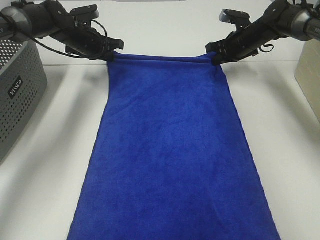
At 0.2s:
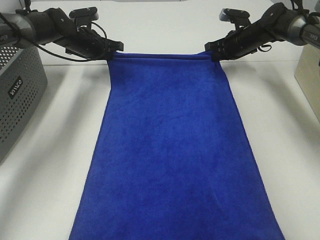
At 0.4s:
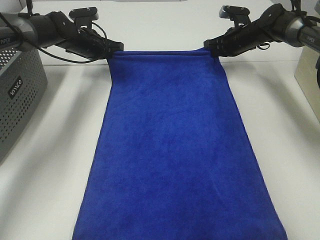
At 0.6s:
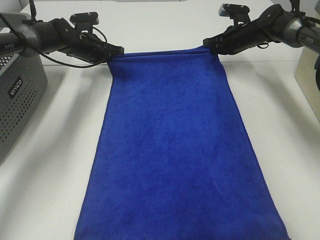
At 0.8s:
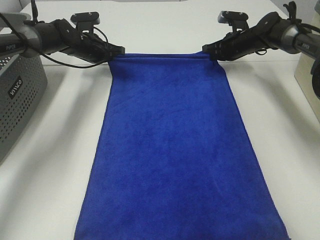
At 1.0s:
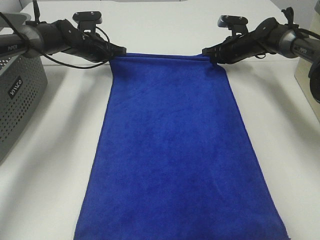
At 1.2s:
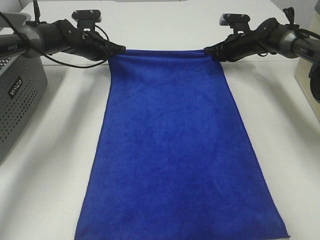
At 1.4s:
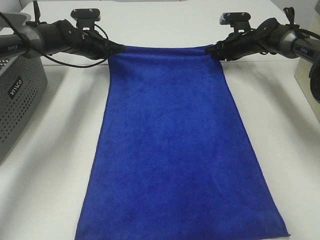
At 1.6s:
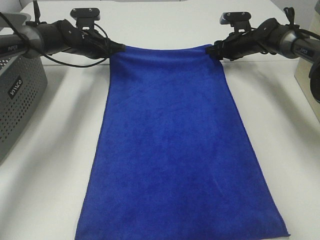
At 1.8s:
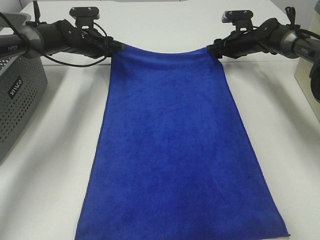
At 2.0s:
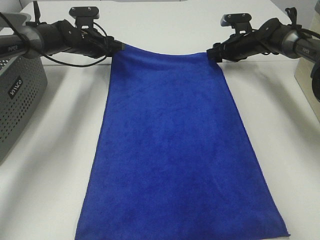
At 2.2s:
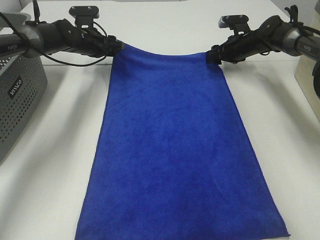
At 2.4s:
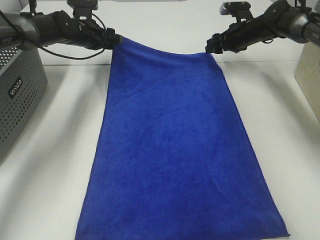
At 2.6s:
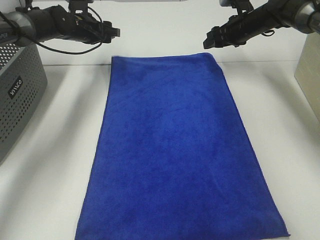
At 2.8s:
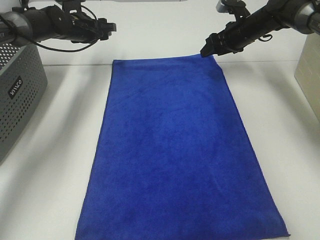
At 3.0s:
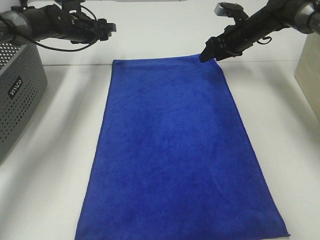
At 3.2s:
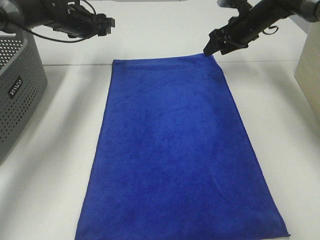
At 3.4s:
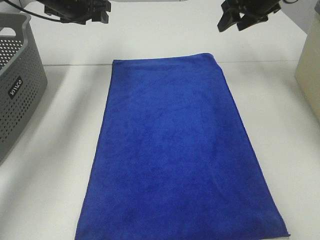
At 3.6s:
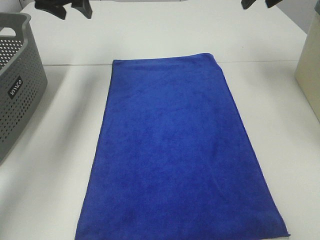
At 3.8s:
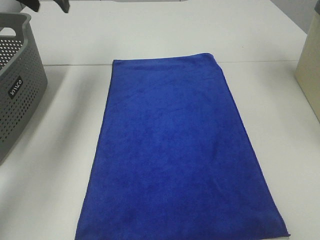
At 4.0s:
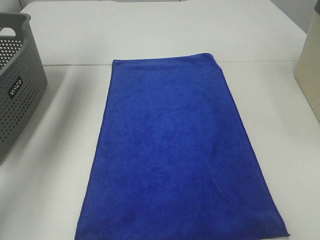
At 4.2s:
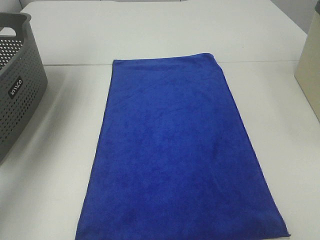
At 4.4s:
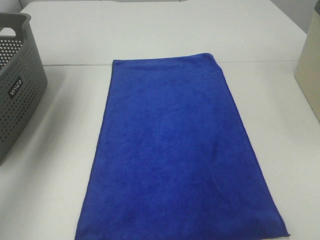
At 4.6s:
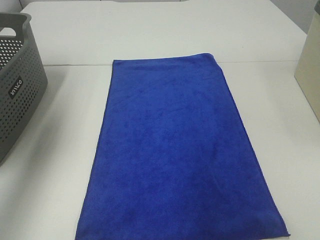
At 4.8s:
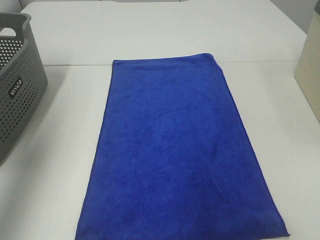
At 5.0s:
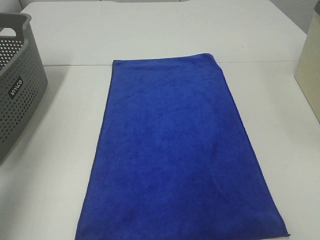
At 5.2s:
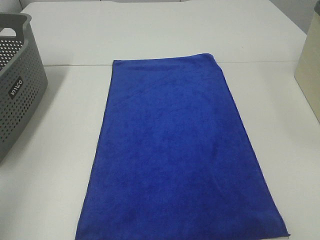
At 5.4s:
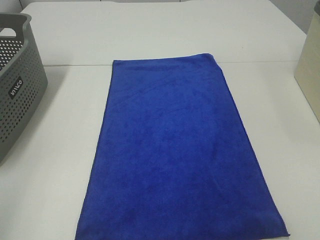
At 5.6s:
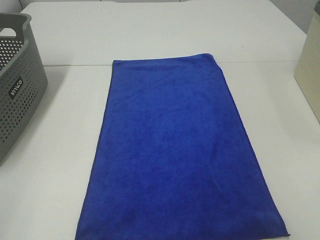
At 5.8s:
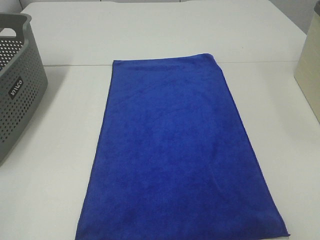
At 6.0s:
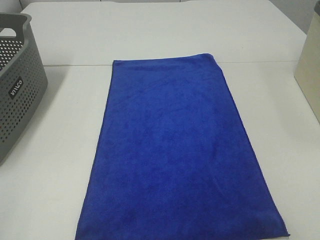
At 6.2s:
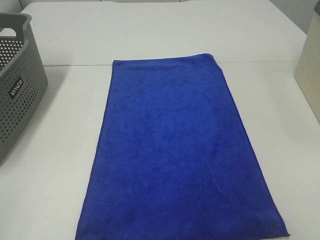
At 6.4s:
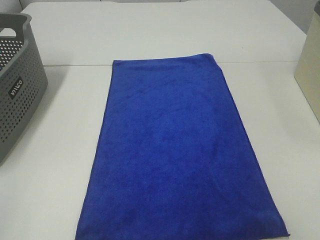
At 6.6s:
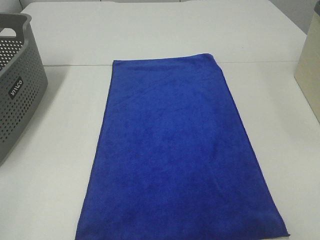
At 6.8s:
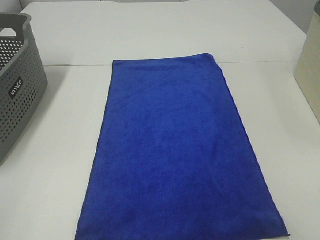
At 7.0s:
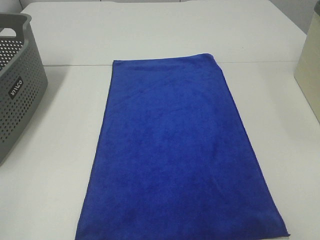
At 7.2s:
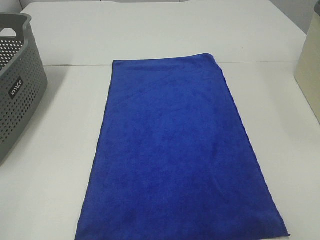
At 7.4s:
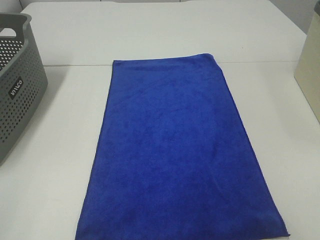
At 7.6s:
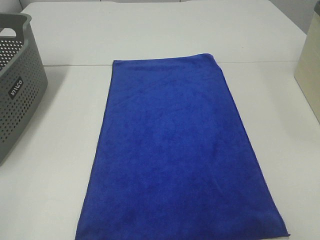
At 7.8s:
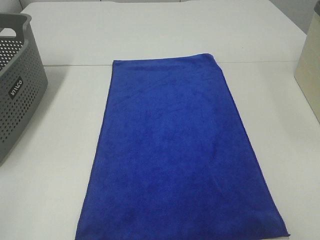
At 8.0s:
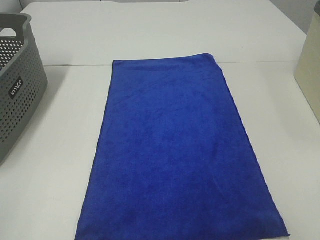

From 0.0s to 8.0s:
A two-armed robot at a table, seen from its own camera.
Task of the whole recording: Remove the towel and place it.
From 0.0s to 1.6s: The right gripper opens its fingers.
From 1.6s to 3.2s: Both grippers move upward, about 10 cm. The left gripper opens up.
From 3.2s to 4.8s: The grippers both shift backward and upward by approximately 40 cm.
From 4.8s to 6.4s: The left gripper shifts approximately 25 cm backward and downward.
From 6.4s to 8.0s: Neither gripper changes place.

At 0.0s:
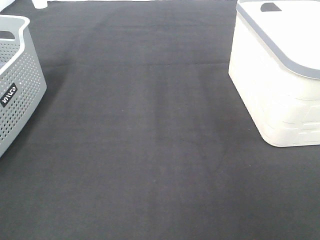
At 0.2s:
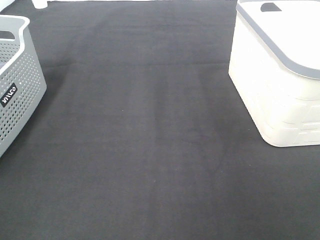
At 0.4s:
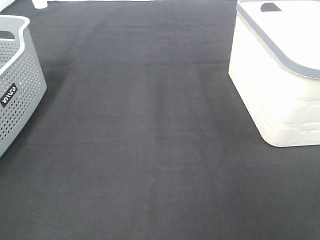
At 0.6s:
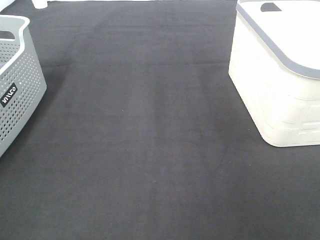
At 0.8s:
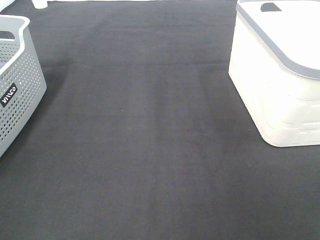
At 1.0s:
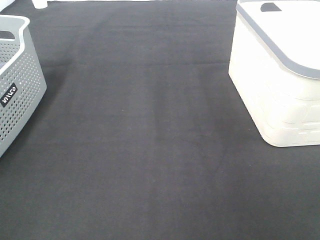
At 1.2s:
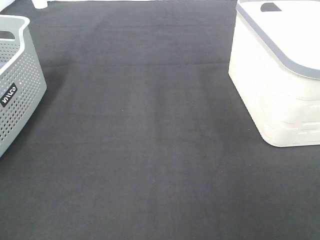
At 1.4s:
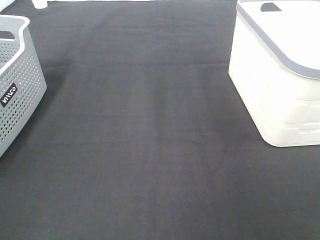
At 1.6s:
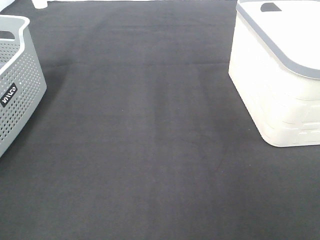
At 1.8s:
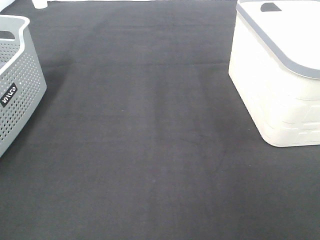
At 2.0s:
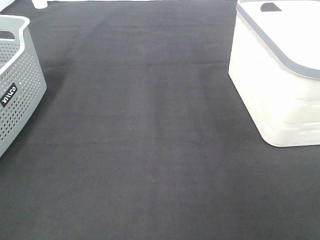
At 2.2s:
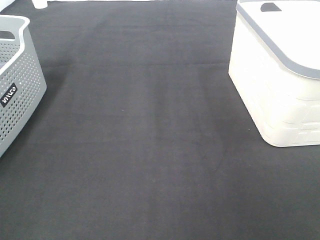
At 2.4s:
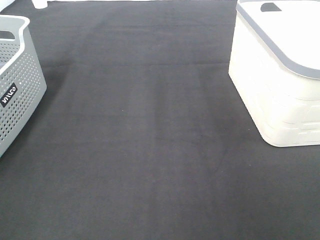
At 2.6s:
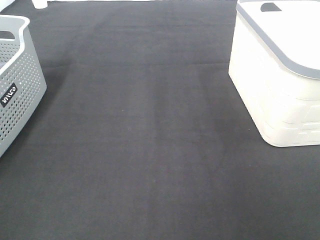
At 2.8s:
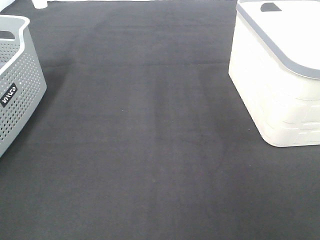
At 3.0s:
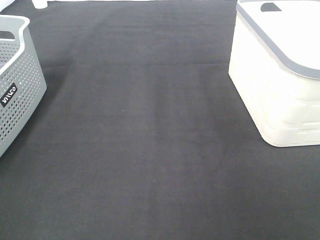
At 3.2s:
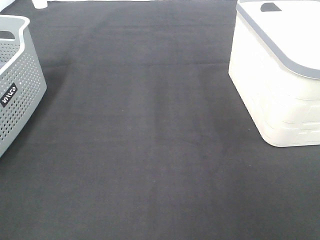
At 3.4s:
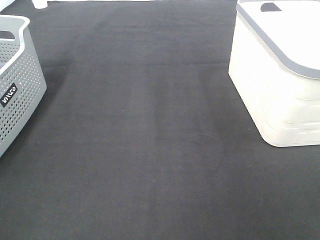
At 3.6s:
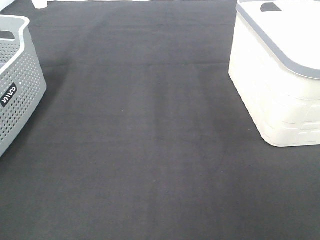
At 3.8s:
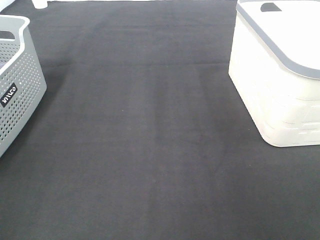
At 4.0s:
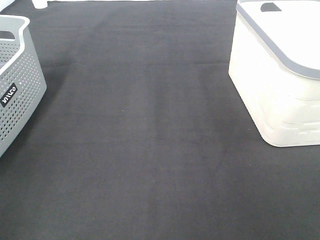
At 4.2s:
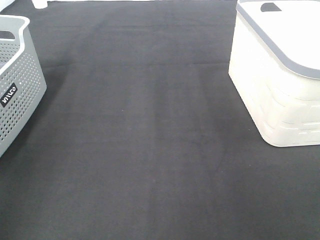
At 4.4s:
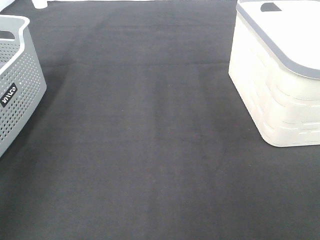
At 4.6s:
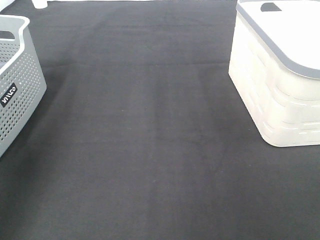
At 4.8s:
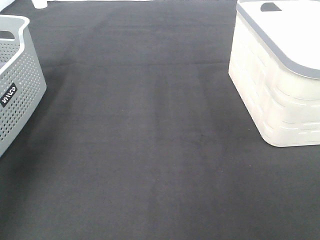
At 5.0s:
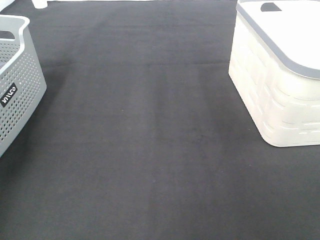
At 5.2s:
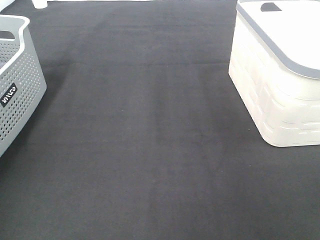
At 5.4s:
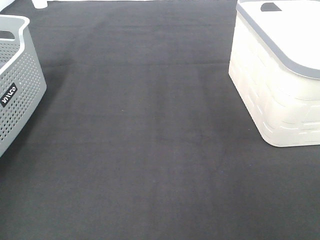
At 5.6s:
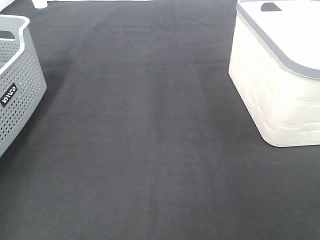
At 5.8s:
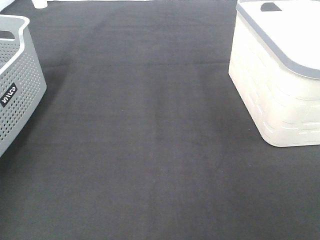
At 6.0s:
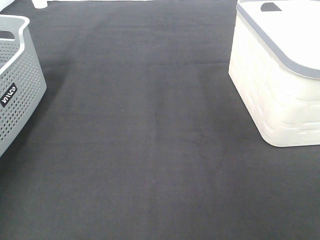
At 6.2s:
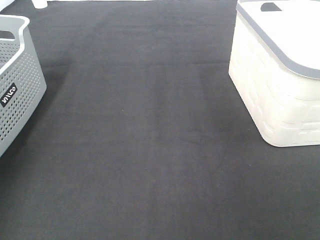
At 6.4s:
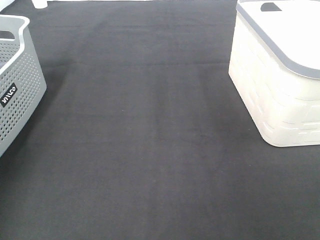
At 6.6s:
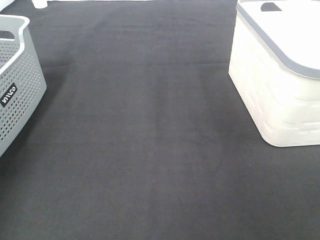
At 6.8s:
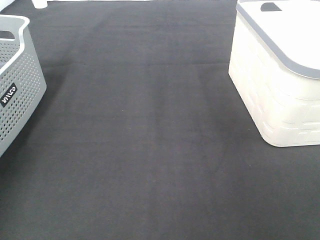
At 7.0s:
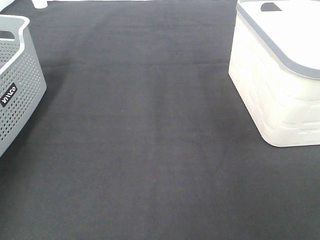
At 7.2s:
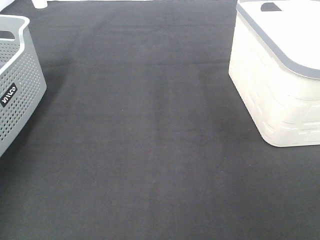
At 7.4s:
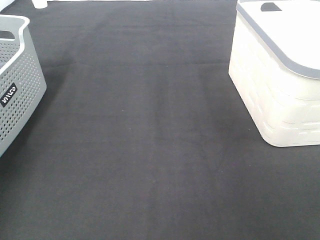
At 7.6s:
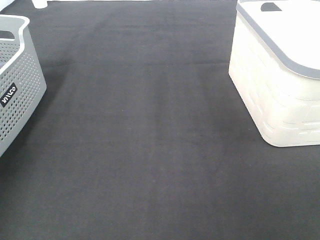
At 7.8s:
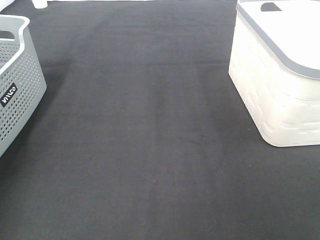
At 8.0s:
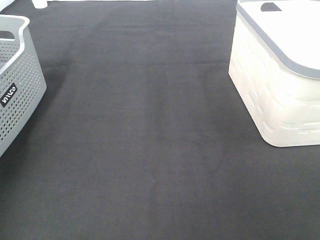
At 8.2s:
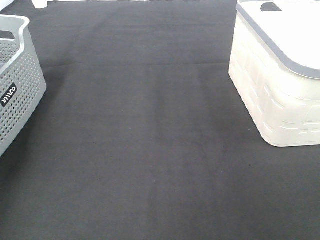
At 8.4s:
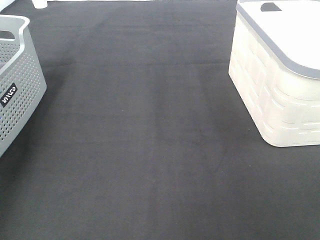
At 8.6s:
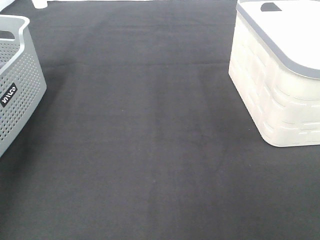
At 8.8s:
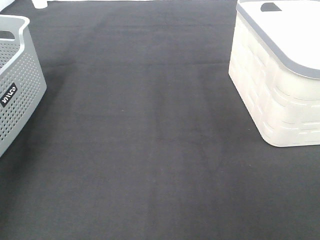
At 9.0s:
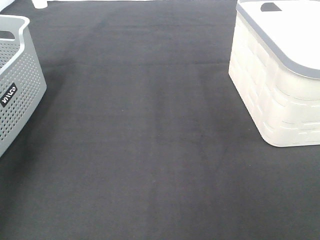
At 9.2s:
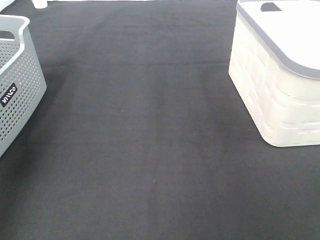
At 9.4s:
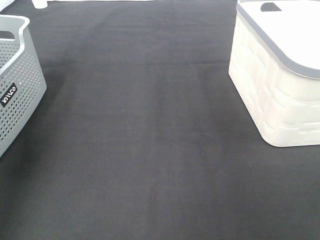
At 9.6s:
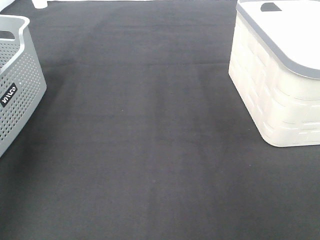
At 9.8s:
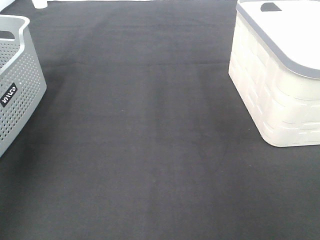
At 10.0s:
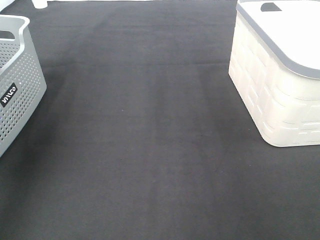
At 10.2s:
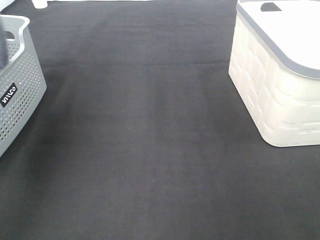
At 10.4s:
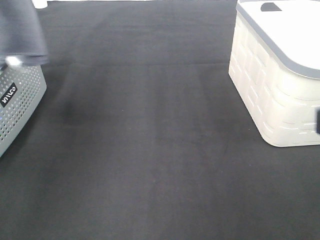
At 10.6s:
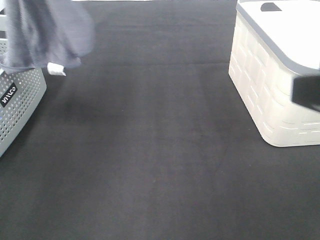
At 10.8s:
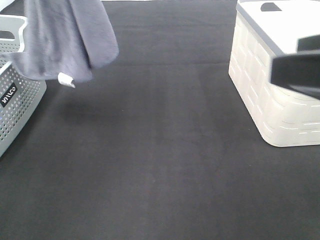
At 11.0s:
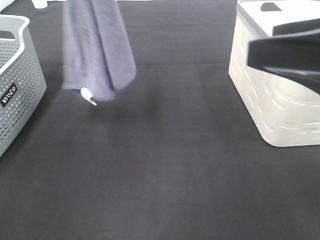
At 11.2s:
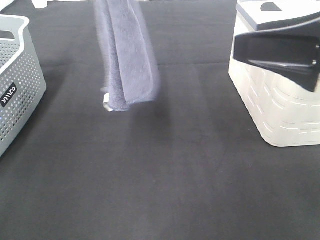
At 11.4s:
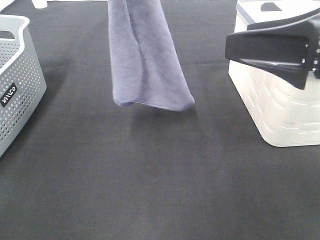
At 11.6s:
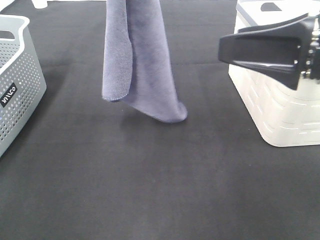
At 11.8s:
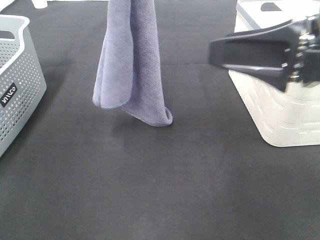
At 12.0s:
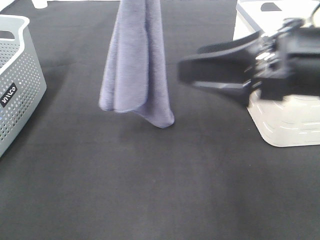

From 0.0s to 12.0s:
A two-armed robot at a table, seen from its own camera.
Task of the whole recording: Remove the towel and place it.
From 0.0s to 3.0s: Both grippers stay about where they are.
From 3.0s to 4.4s: The left gripper heads forward and upward, covering some 20 cm.
From 9.0s to 10.4s: The left gripper moves to the right and upward, some 15 cm.
From 10.4s to 12.0s: The right gripper shifts some 15 cm forward, to the left and downward; the left gripper heads to the right and downward, covering about 20 cm.

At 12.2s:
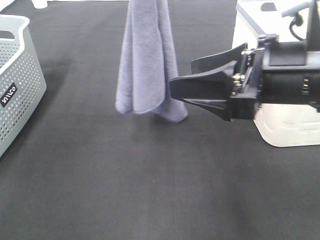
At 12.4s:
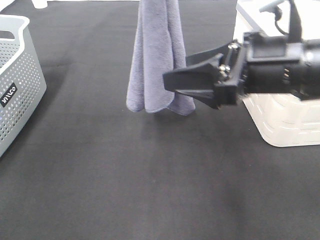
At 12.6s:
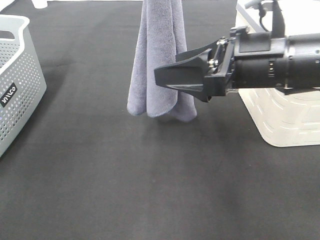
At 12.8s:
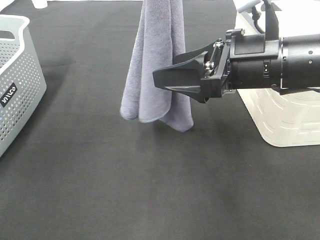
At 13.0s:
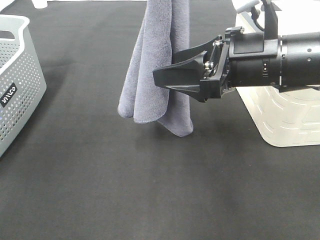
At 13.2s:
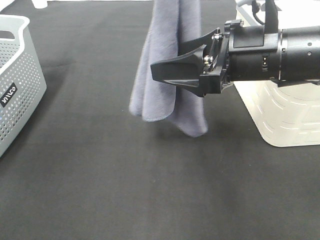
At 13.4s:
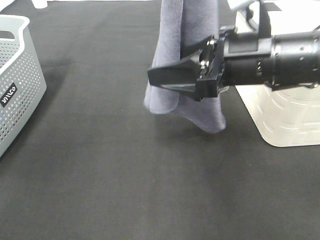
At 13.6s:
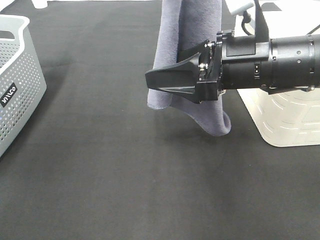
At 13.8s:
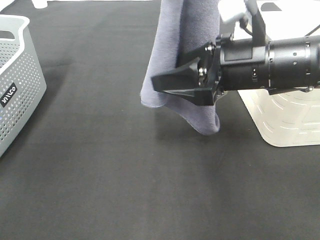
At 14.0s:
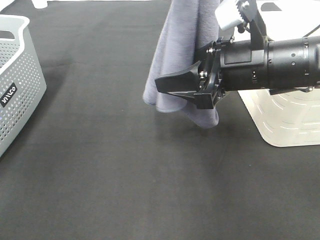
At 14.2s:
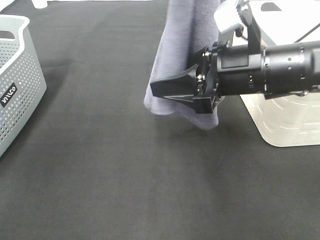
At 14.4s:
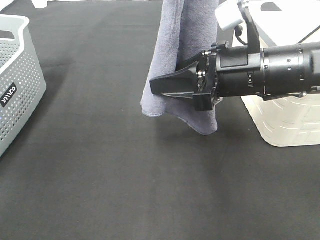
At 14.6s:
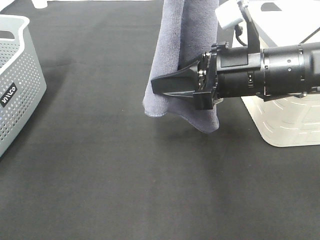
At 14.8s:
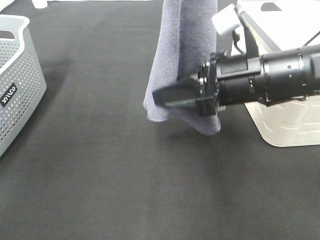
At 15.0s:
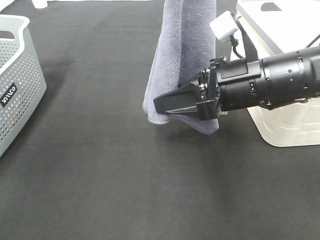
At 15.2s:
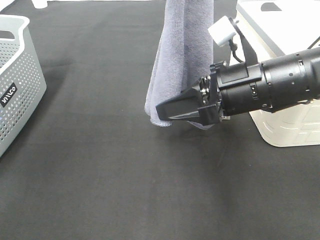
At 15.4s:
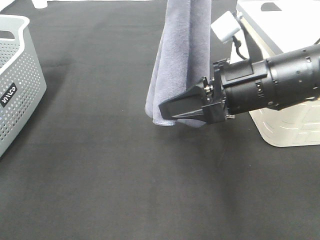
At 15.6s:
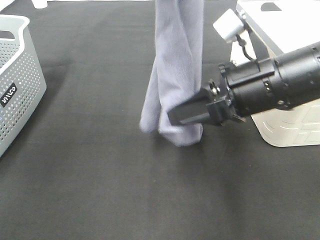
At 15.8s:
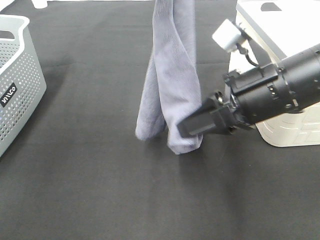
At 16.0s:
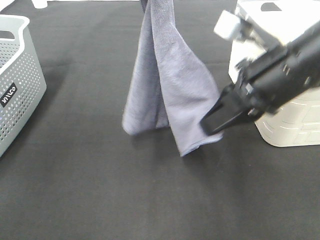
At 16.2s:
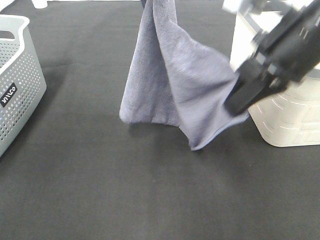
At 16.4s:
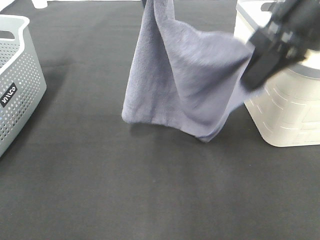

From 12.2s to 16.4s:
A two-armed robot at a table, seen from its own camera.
Task of the whole recording: Remove the towel and place it.
From 12.2s to 13.6s: The right gripper changes place by about 5 cm.
From 13.6s to 15.0s: The right gripper closes.
From 15.0s to 16.4s: The right gripper shifts approximately 15 cm upward; the left gripper changes place by about 5 cm.
